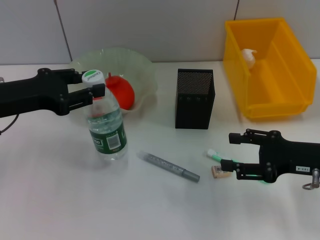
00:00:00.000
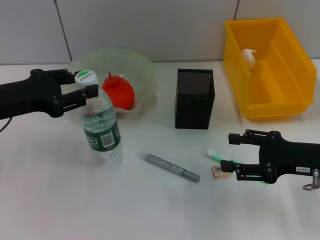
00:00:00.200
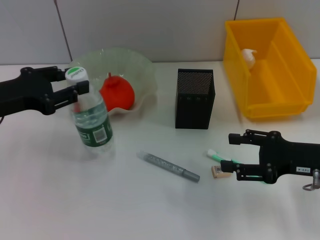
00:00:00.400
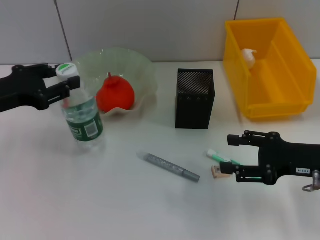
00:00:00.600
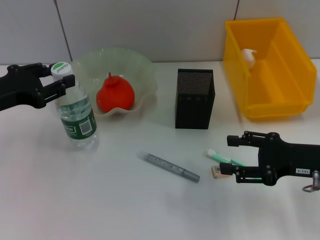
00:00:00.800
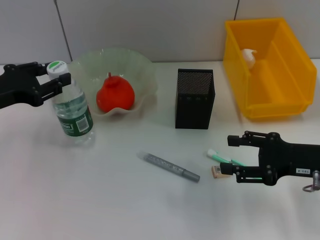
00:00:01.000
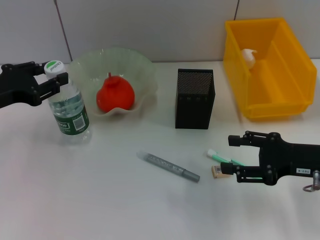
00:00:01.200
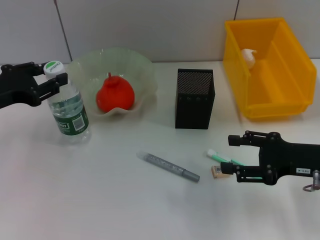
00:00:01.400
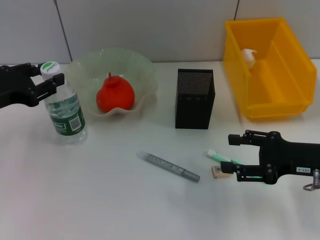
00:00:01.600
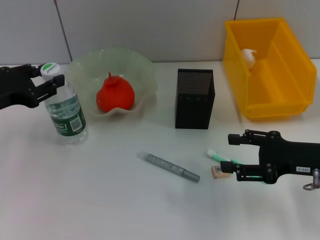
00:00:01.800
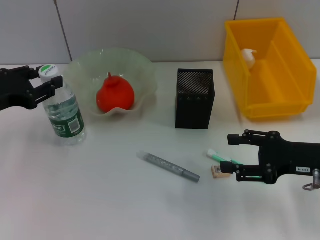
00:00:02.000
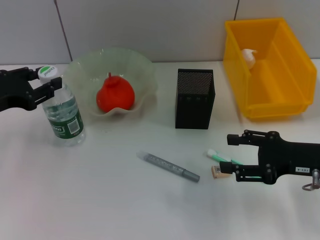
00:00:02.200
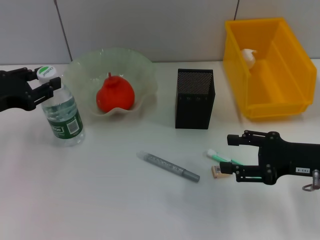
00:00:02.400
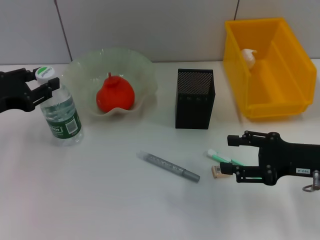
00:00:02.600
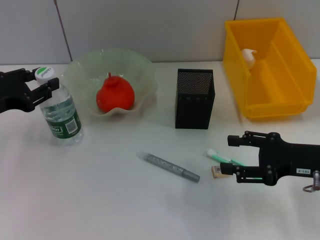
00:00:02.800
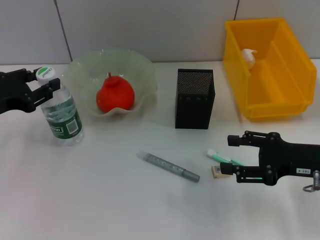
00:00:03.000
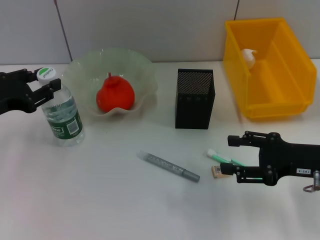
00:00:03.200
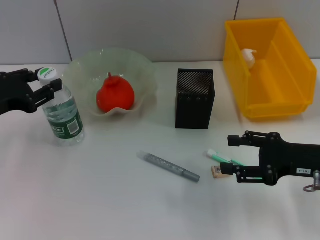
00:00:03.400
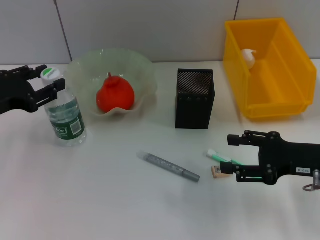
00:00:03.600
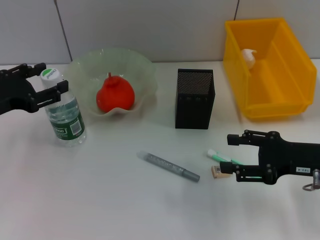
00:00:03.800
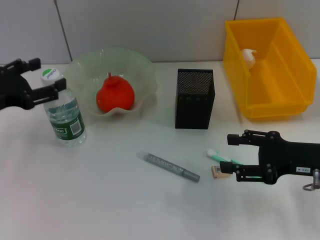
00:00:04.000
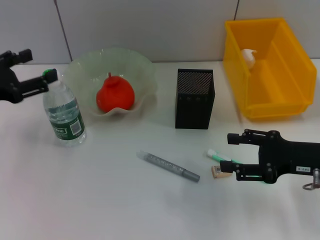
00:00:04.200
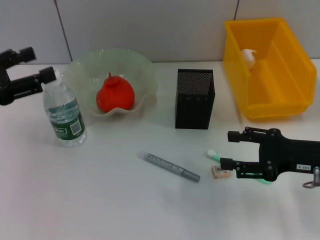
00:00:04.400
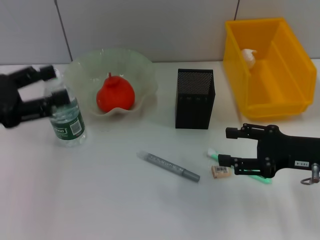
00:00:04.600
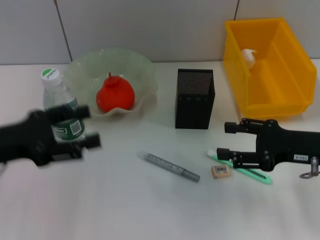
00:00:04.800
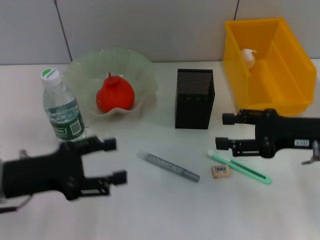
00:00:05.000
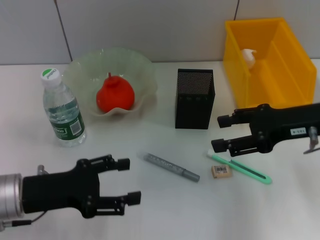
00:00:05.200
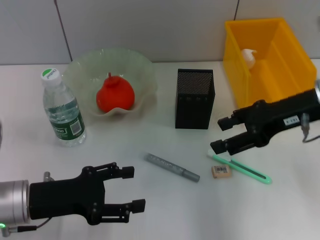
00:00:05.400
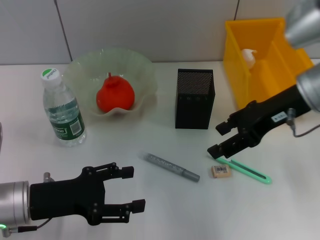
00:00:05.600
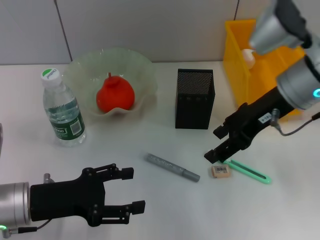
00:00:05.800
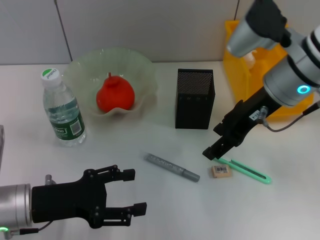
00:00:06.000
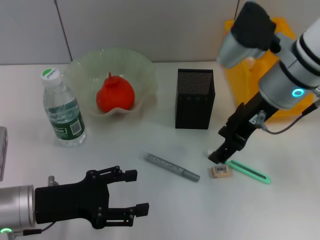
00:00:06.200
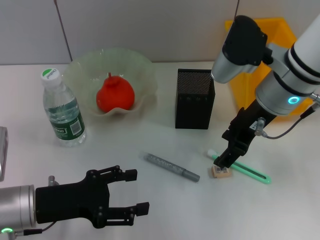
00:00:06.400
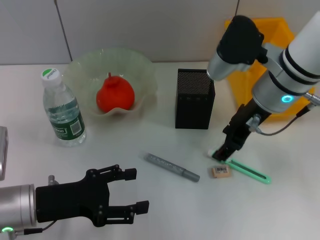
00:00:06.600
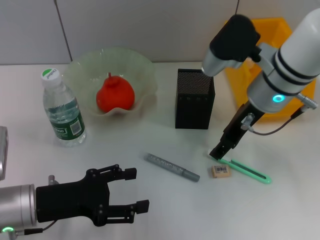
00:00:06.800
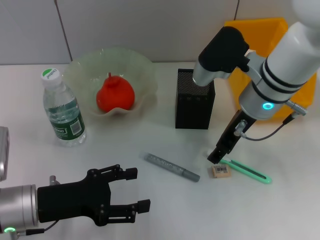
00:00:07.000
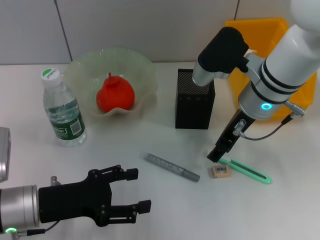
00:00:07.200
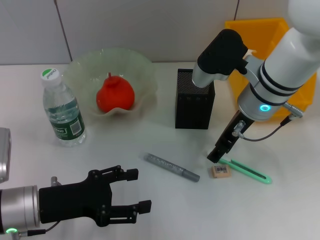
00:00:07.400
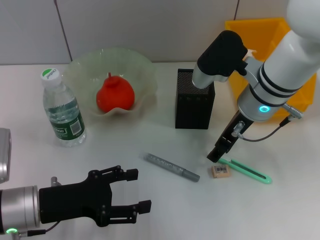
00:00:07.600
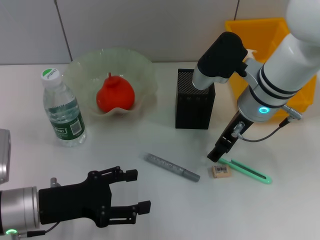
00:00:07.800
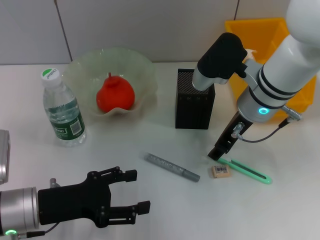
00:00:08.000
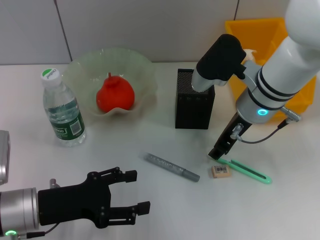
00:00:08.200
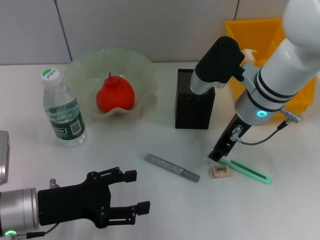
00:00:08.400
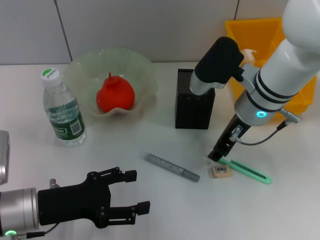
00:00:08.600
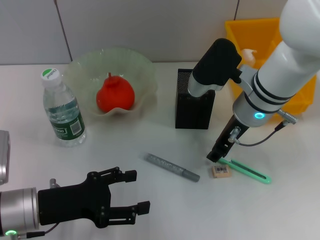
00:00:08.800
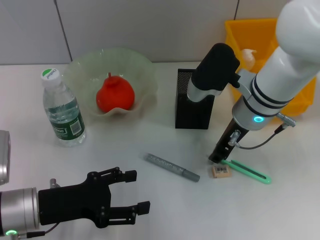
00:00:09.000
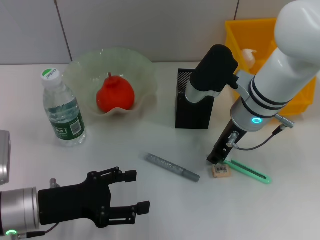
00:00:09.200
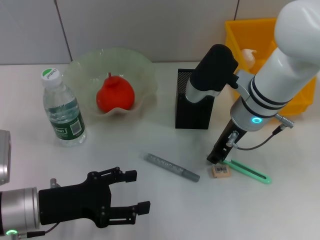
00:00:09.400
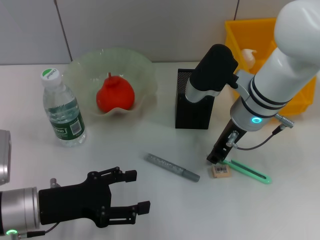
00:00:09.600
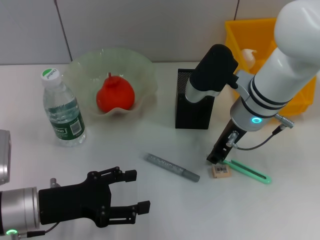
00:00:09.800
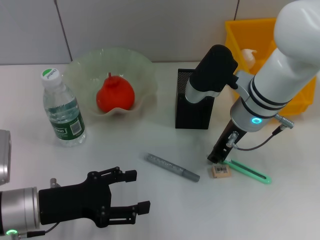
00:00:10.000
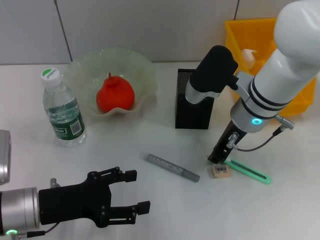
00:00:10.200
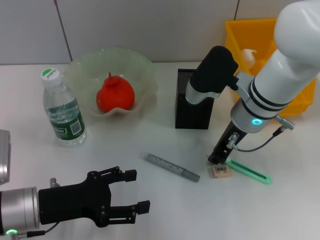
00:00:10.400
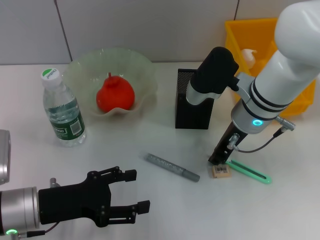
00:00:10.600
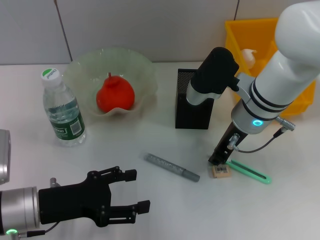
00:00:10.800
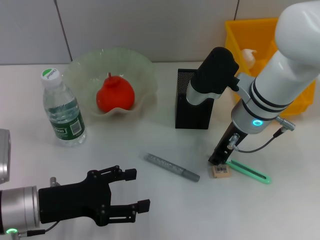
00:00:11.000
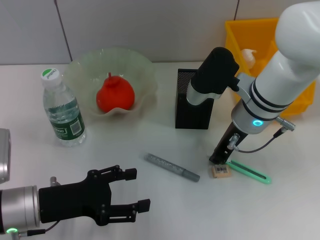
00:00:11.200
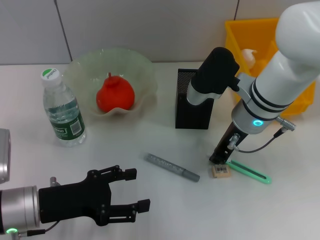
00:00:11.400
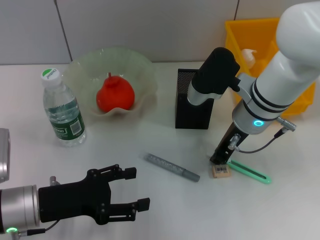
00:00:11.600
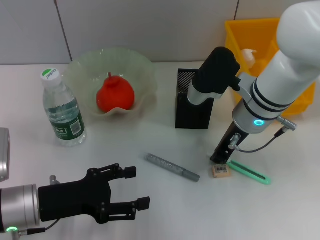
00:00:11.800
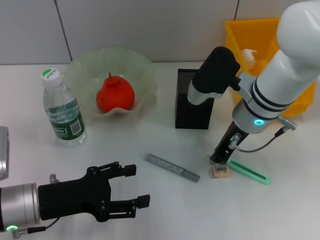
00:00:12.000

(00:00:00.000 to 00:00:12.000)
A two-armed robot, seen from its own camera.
Step, 00:00:00.000 - 00:00:03.400: Place the water bottle on the table with the left hand.
Step, 00:00:03.800 - 00:00:11.600: Grab the blue utility knife with the right hand.
00:00:00.000 - 00:00:01.600: The grippers move only a little.
00:00:01.600 - 00:00:03.000: The two grippers keep their place.
00:00:03.000 - 00:00:04.400: The left gripper opens up.
00:00:04.400 - 00:00:06.000: The left gripper travels downward and to the right by roughly 15 cm; the right gripper shifts roughly 20 cm to the left, upward and forward.
00:00:06.000 - 00:00:07.600: The right gripper goes roughly 5 cm downward.
00:00:07.600 - 00:00:09.000: The right gripper closes its fingers.
00:00:09.000 - 00:00:12.000: Both grippers stay about where they are.

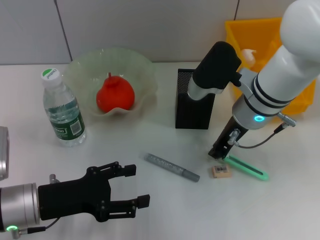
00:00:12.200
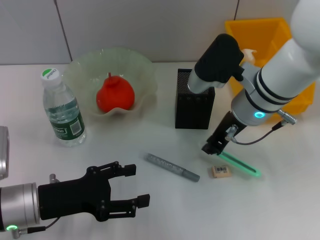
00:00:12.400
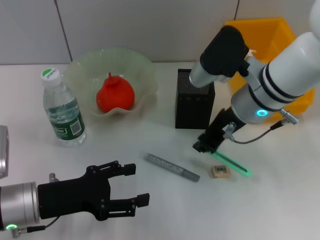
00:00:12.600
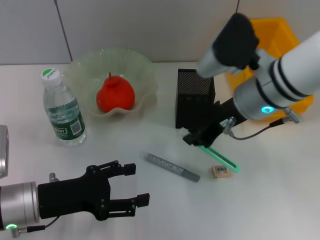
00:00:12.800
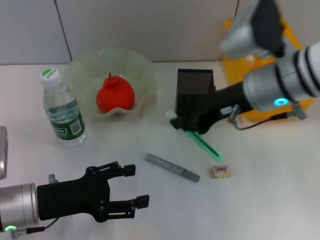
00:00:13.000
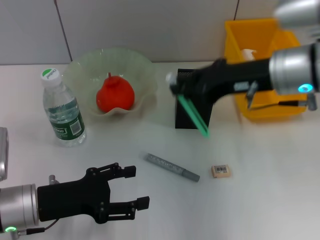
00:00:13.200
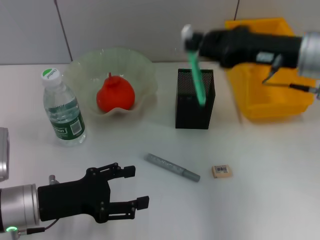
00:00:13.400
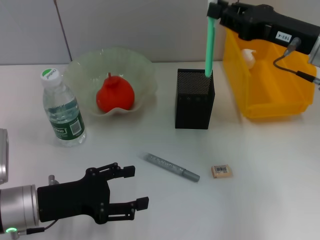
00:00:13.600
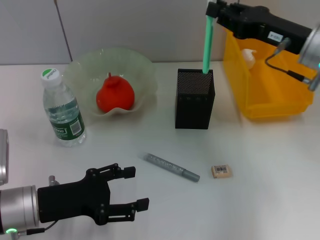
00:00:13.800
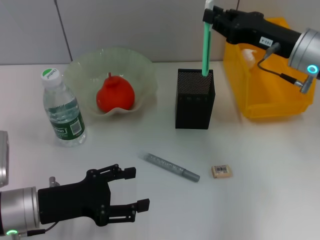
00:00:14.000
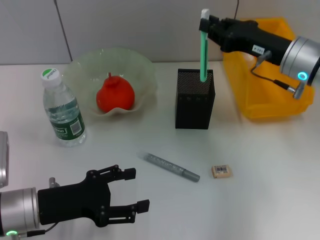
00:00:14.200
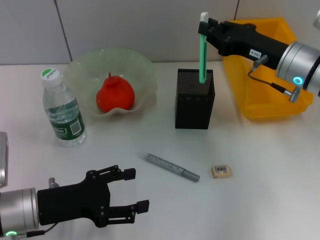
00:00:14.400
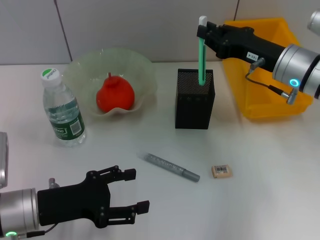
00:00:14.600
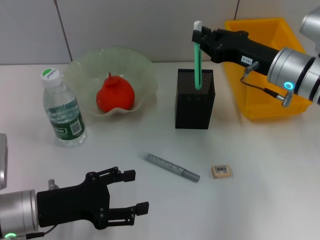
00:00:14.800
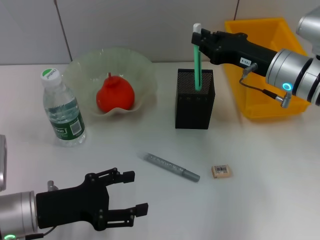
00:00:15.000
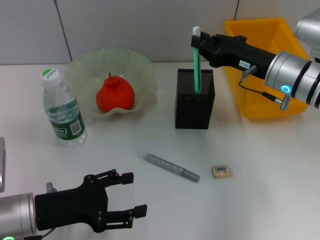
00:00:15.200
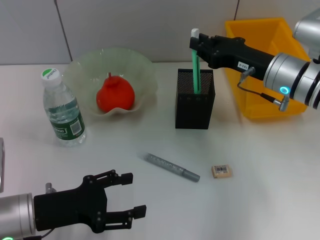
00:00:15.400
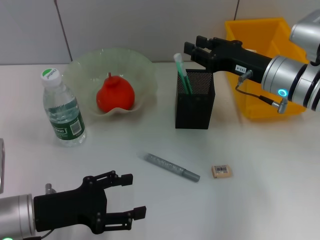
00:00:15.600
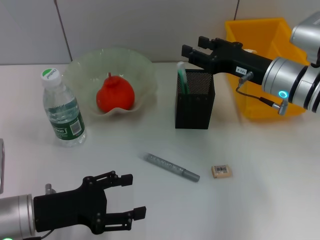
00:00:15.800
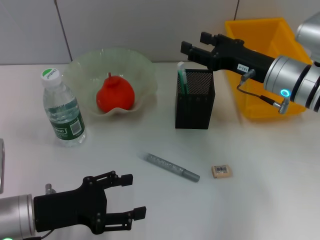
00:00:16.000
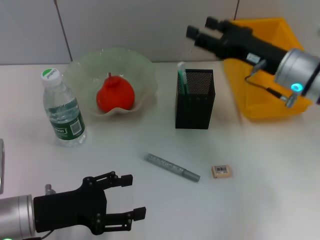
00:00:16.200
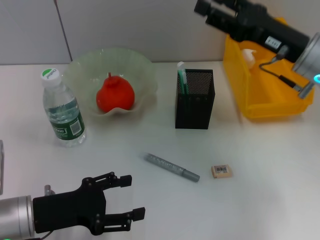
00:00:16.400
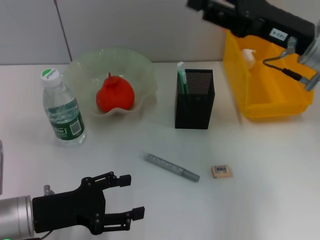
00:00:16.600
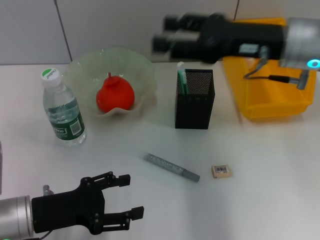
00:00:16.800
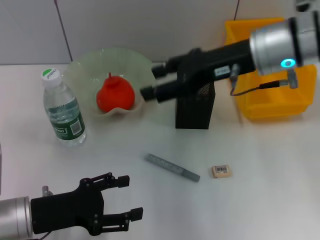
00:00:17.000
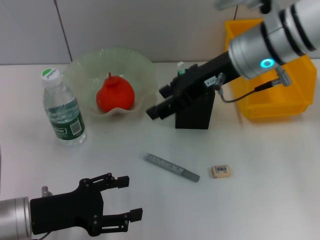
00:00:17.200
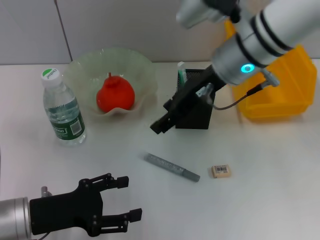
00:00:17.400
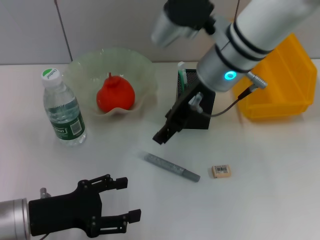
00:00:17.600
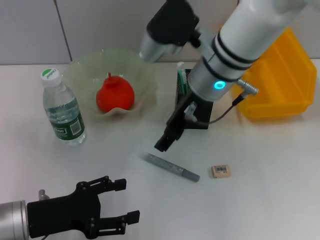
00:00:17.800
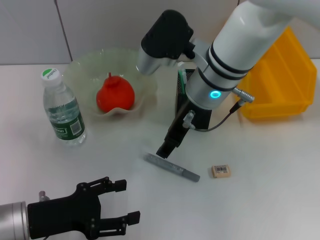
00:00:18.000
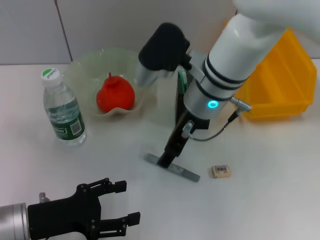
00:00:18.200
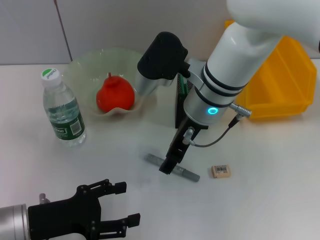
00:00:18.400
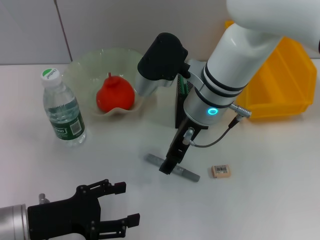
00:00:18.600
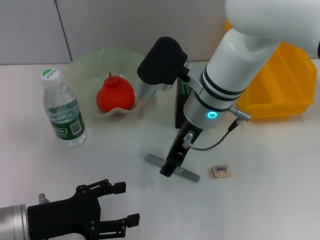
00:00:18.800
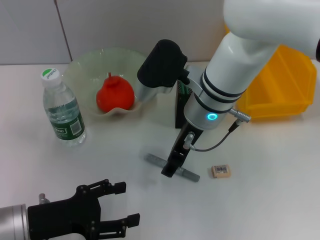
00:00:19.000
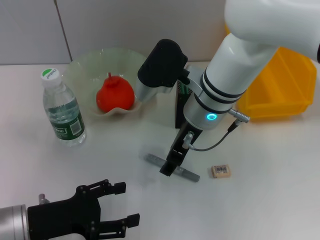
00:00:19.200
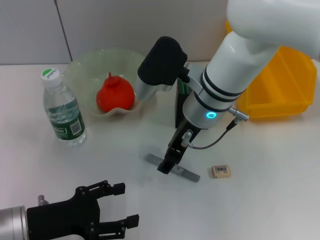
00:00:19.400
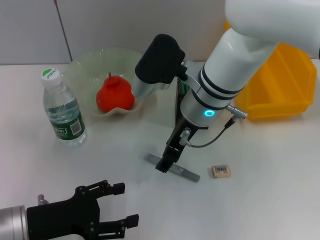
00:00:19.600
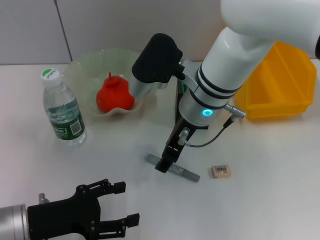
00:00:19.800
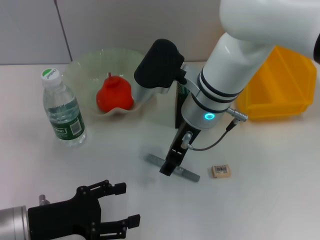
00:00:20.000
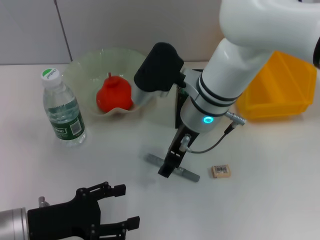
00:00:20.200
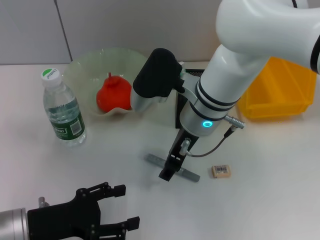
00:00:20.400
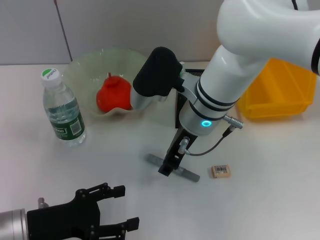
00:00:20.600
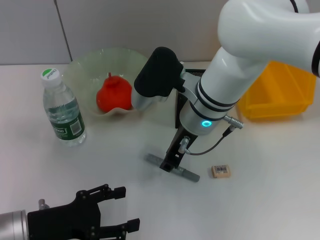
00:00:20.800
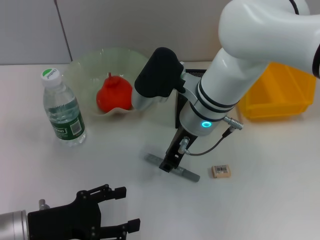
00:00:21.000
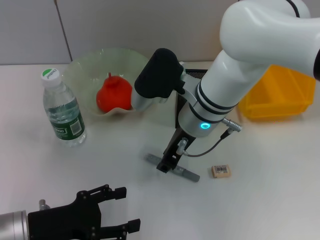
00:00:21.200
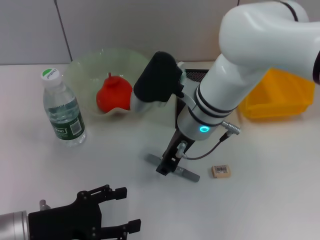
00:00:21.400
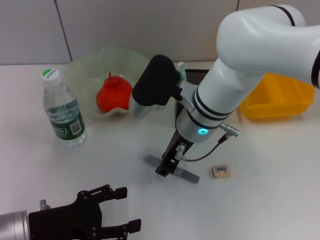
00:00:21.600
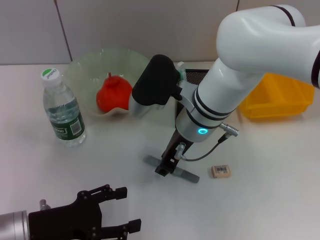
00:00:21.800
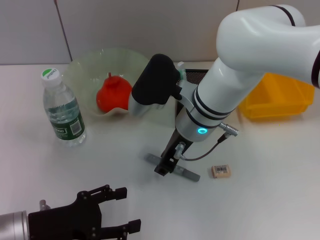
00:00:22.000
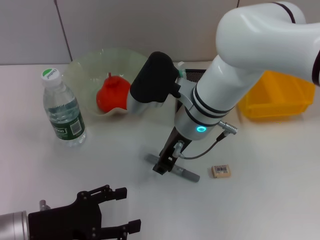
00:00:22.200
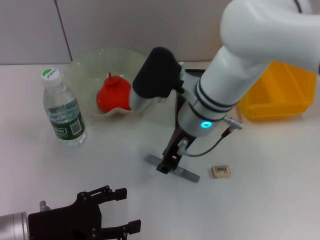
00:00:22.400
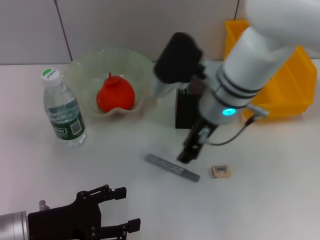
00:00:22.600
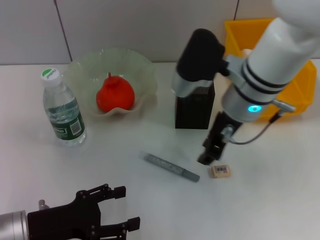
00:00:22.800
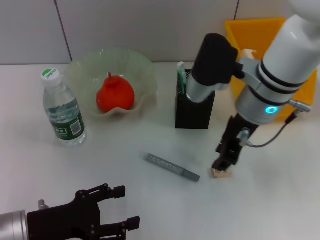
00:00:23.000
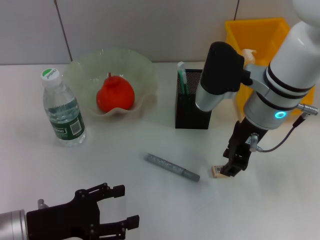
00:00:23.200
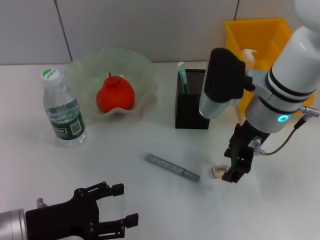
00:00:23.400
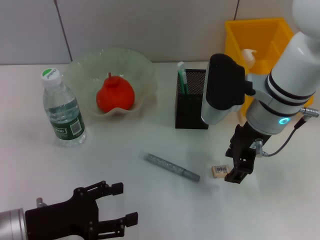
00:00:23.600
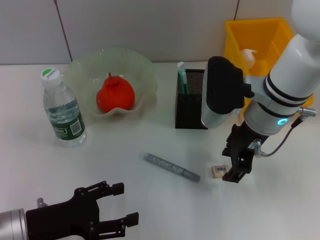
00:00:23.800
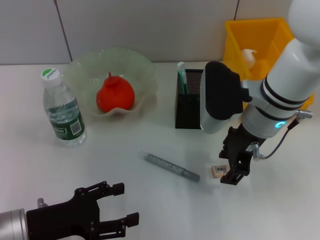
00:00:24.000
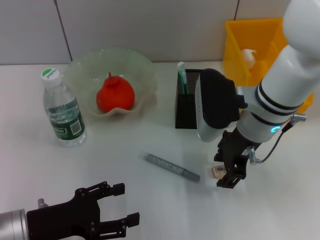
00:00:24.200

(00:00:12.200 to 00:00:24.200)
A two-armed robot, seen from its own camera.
Step, 00:00:12.200 - 00:00:15.600: Place the blue utility knife into the pen holder with the right hand.
00:00:12.200 - 00:00:13.800: The right gripper shifts roughly 10 cm to the right.
00:00:13.800 - 00:00:15.200: The right gripper is displaced downward by roughly 5 cm.
00:00:15.200 - 00:00:16.600: The right gripper moves upward, about 5 cm, and opens up.
00:00:16.600 - 00:00:18.200: The right gripper is displaced to the left by approximately 15 cm.
00:00:18.200 - 00:00:19.800: The grippers stay close to where they were, moving slightly.
00:00:19.800 - 00:00:21.200: The right gripper closes up.
00:00:21.200 - 00:00:22.600: The grippers move only a little.
00:00:22.600 - 00:00:24.200: The right gripper is displaced to the right by some 5 cm, and opens up.
